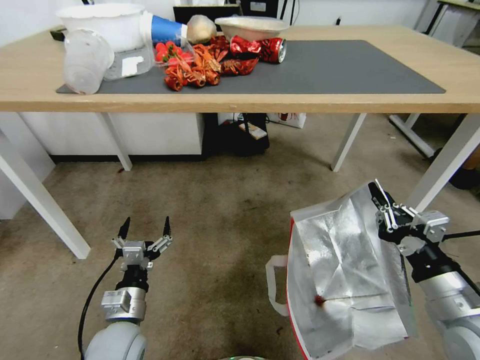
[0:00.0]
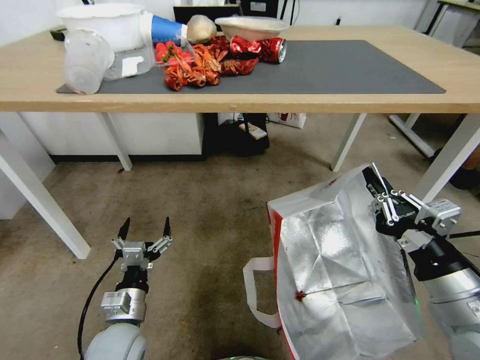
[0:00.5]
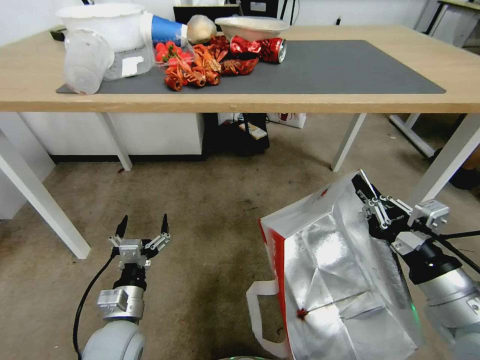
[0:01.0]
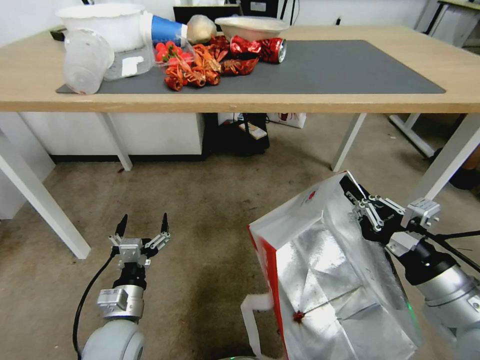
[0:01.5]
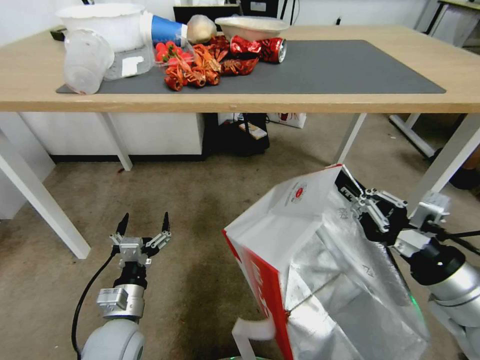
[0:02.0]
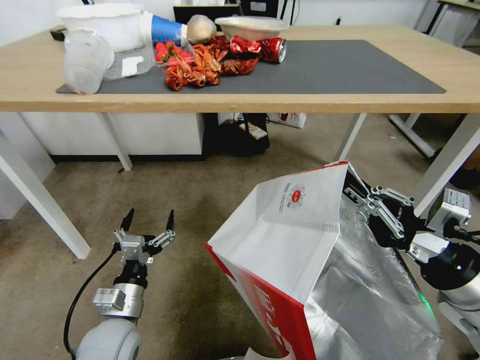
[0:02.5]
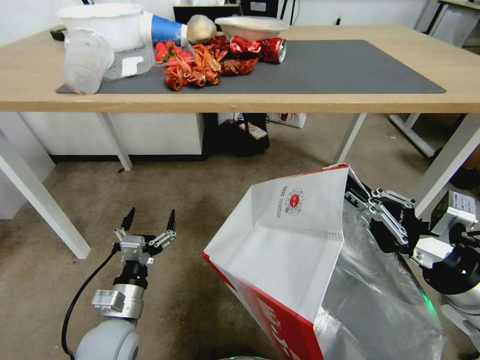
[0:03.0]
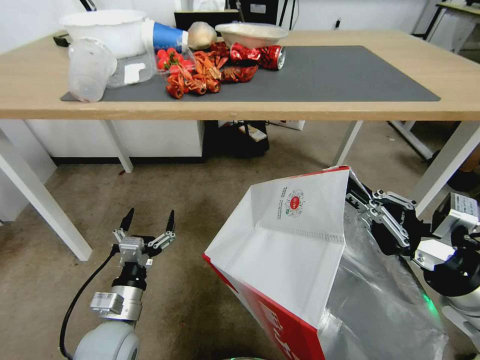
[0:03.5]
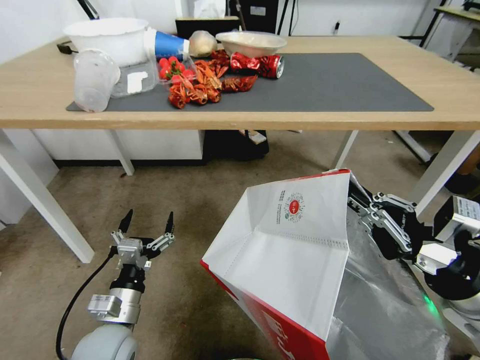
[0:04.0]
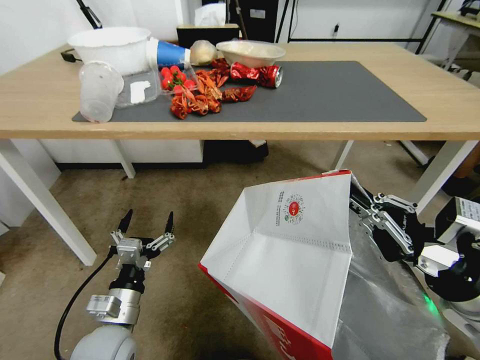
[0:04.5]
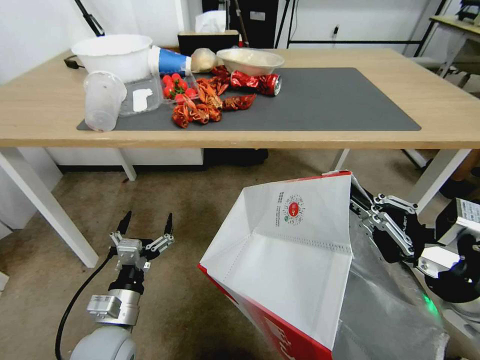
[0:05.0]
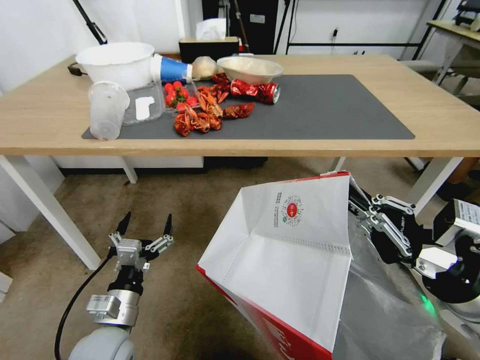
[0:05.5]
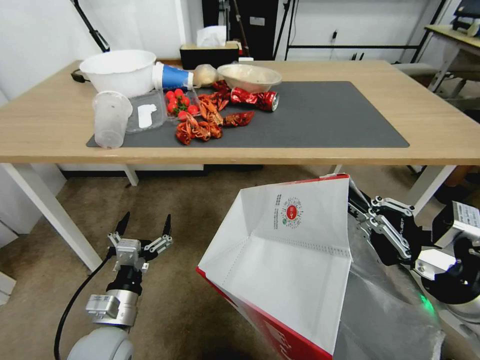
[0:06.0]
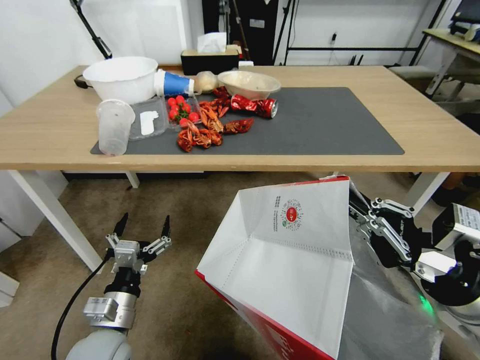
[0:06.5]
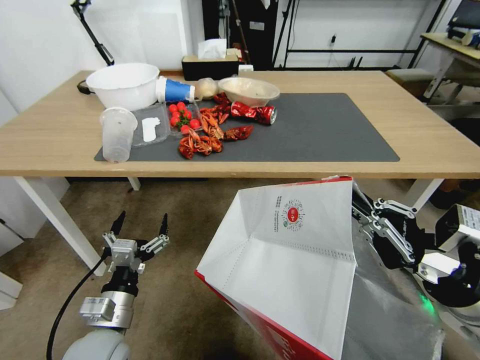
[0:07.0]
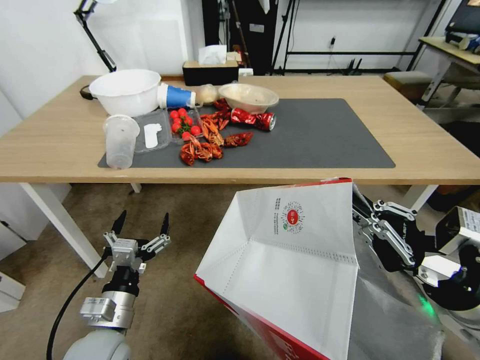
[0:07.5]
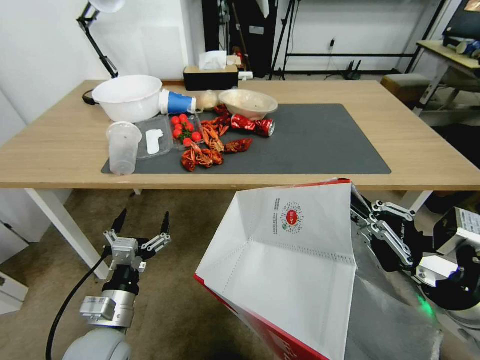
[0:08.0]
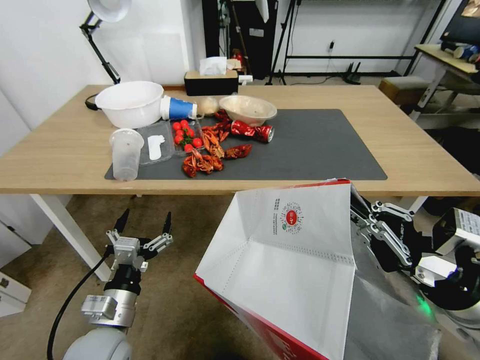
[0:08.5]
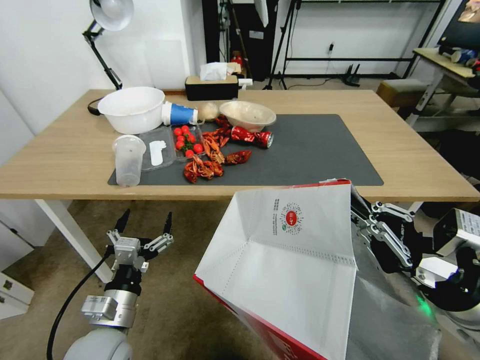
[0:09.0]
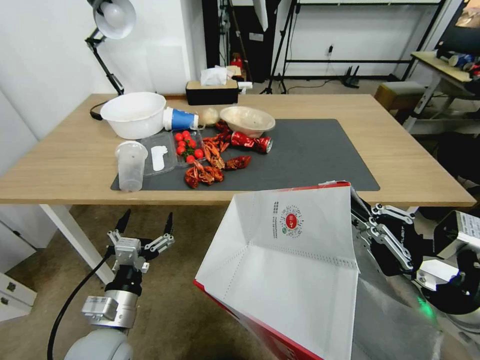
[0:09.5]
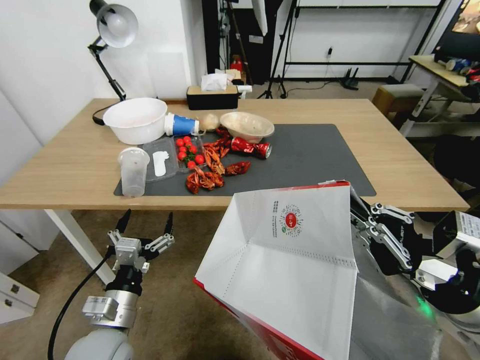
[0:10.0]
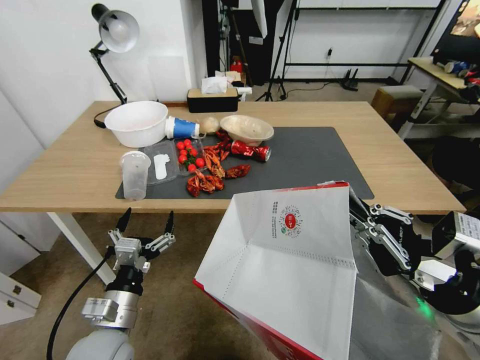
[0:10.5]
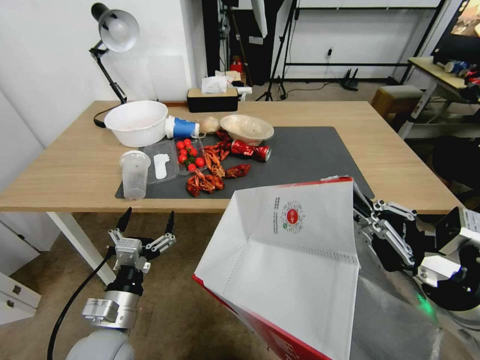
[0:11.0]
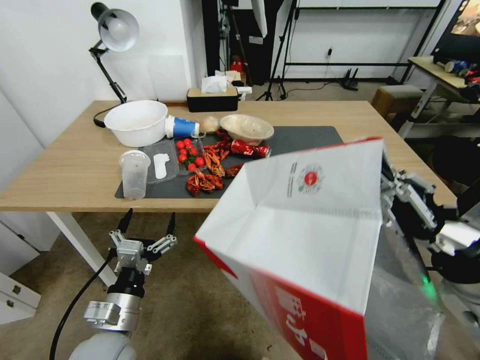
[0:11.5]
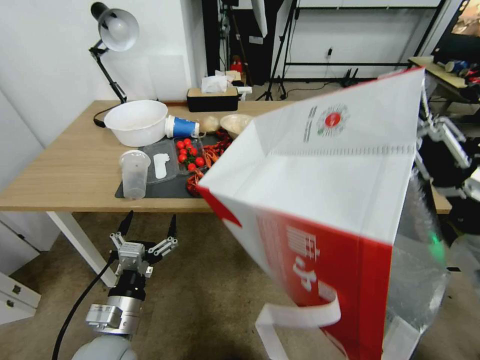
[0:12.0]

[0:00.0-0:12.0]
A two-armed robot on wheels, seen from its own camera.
Task of the whole recording: Pick up the food delivery bag from the floor and place it on the table.
0:00.0 to 0:02.0: The right gripper is displaced upward by about 5 cm.
0:10.0 to 0:12.0: The right gripper is displaced upward by some 5 cm.

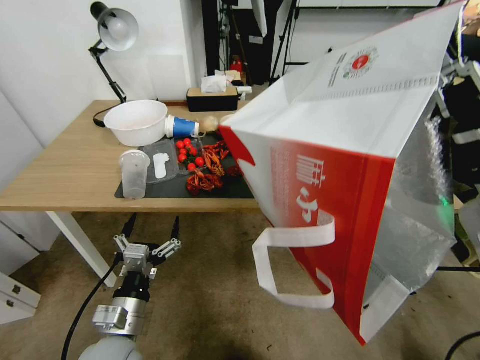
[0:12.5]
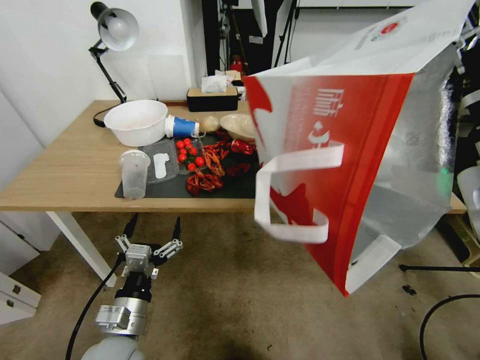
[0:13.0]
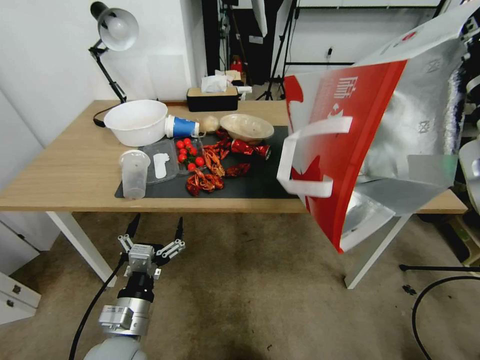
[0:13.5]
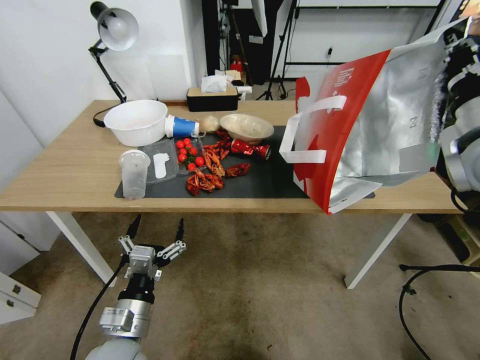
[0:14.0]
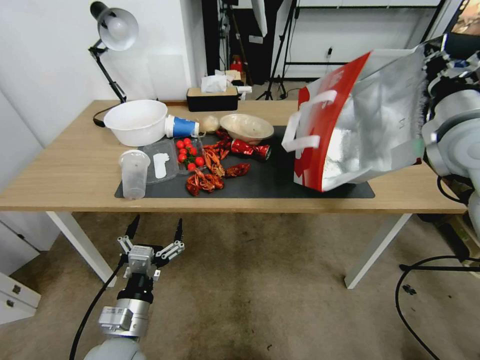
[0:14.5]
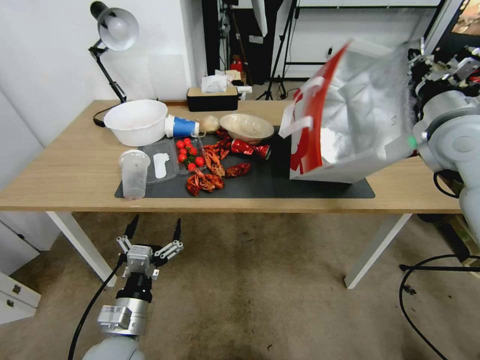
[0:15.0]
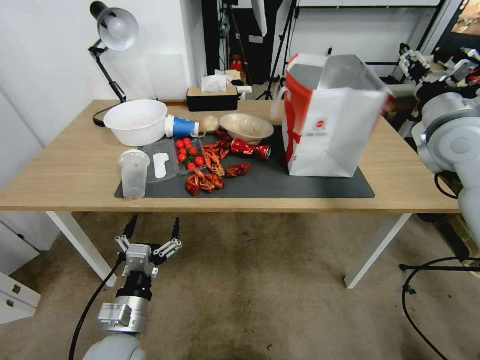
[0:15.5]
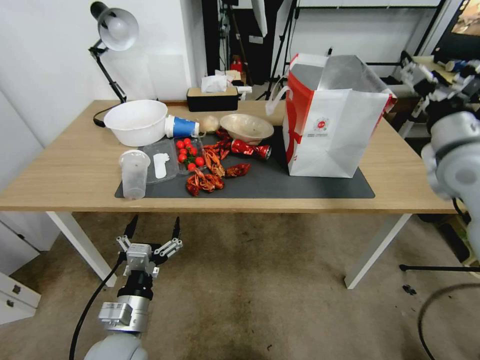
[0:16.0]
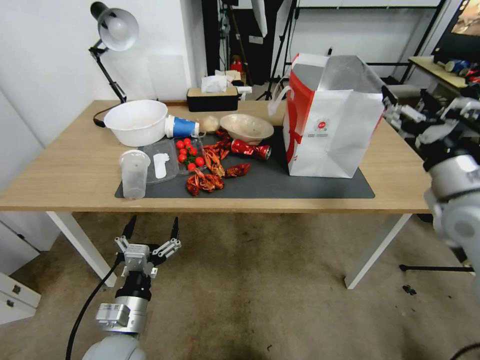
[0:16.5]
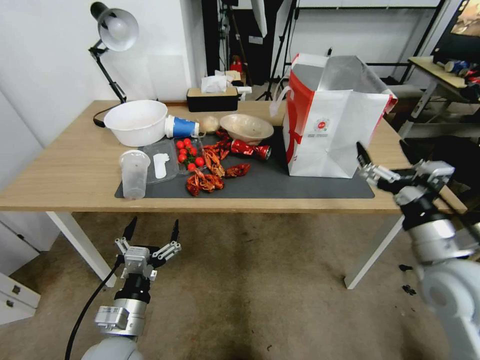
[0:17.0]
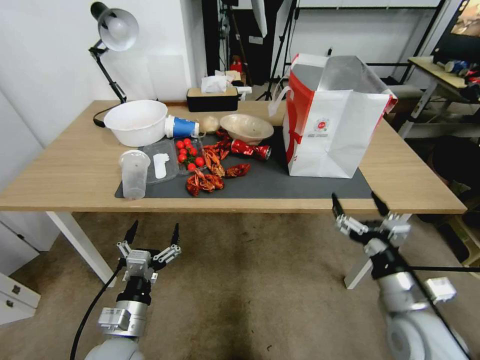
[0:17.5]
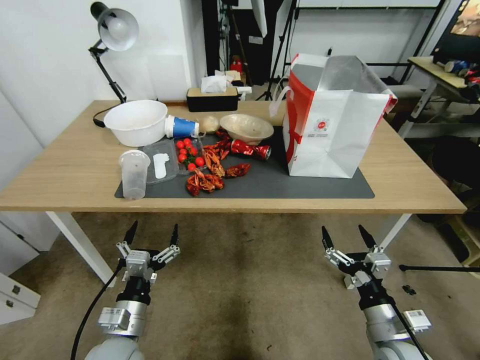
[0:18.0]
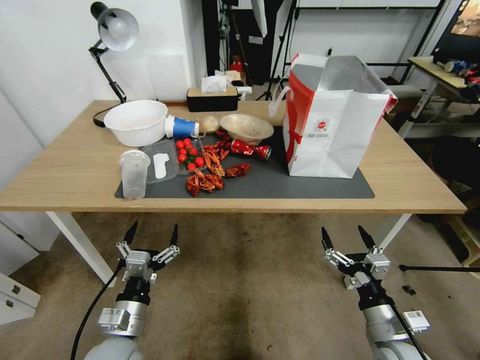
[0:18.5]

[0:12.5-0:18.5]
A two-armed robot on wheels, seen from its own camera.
Task of the whole recording: Pick up the food delivery bag from the floor and place it on the table.
0:12.5 to 0:14.5: The right gripper goes roughly 15 cm forward.
0:14.5 to 0:16.5: The right gripper travels downward and backward by about 10 cm, and opens up.
0:16.5 to 0:18.5: The right gripper goes approximately 30 cm downward and backward.
